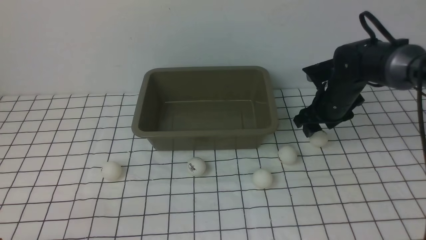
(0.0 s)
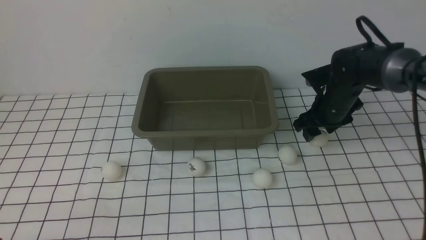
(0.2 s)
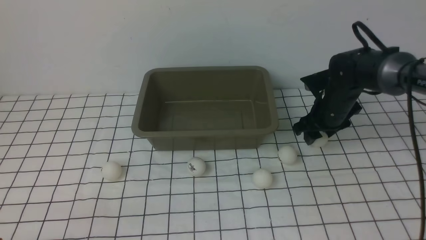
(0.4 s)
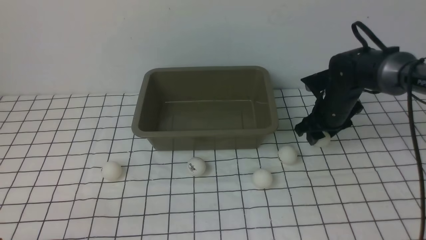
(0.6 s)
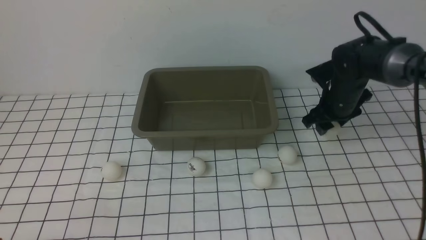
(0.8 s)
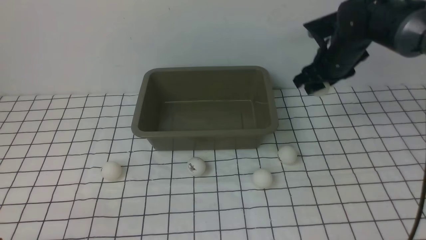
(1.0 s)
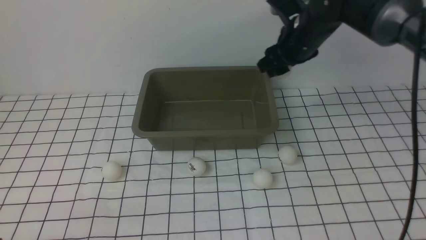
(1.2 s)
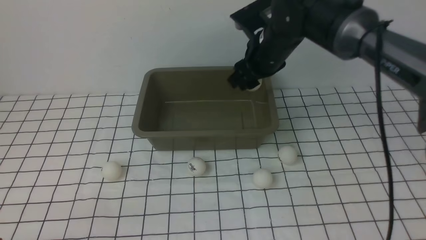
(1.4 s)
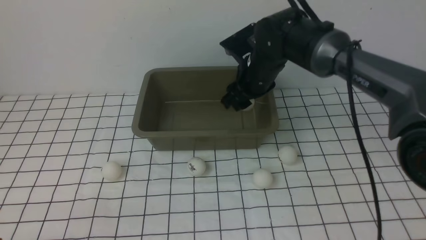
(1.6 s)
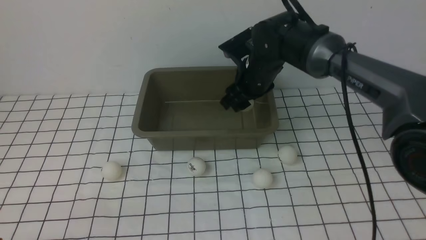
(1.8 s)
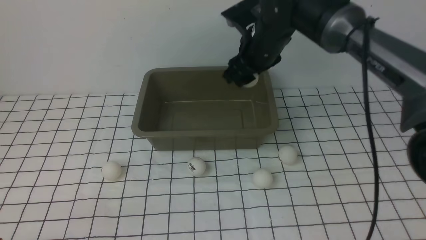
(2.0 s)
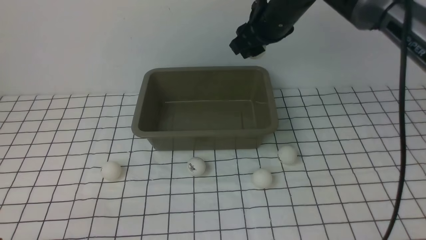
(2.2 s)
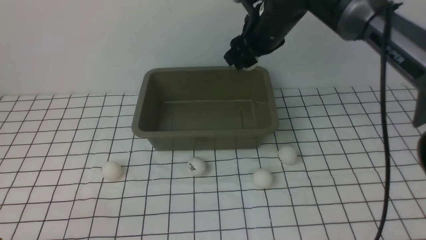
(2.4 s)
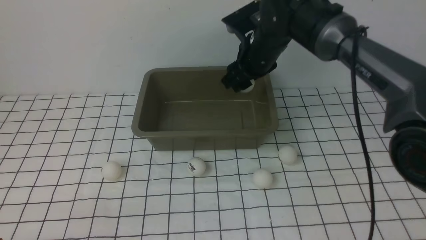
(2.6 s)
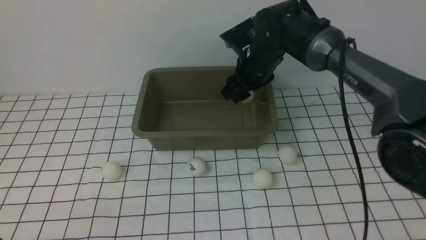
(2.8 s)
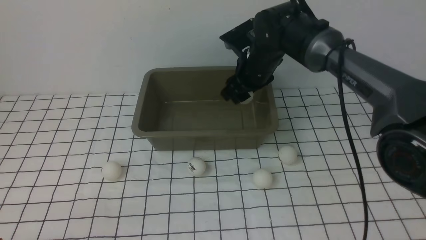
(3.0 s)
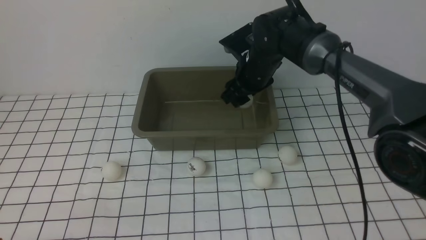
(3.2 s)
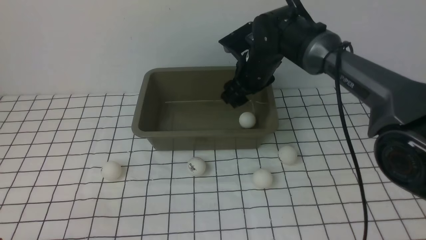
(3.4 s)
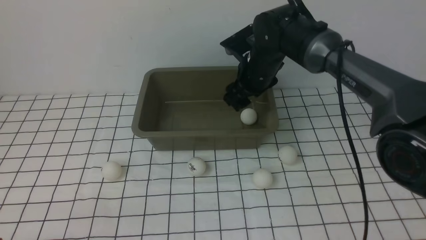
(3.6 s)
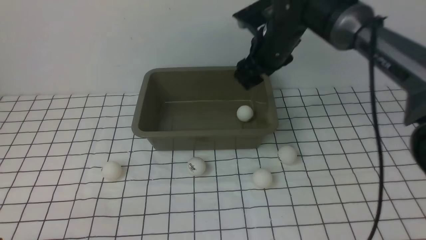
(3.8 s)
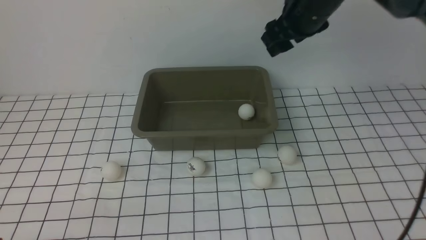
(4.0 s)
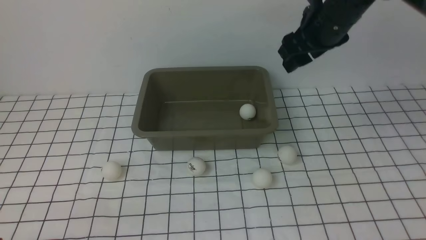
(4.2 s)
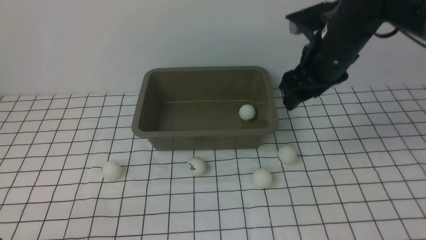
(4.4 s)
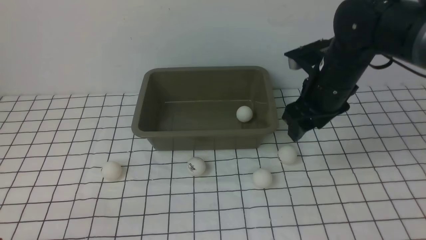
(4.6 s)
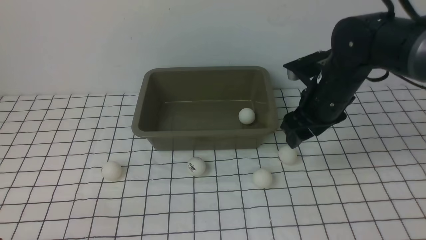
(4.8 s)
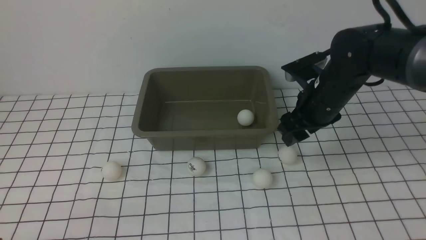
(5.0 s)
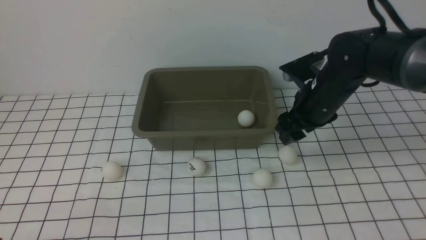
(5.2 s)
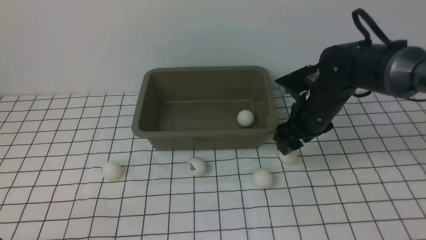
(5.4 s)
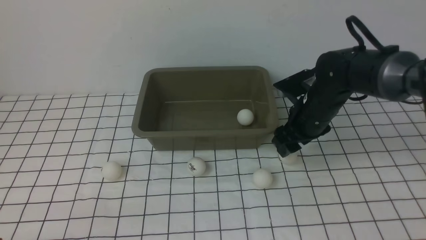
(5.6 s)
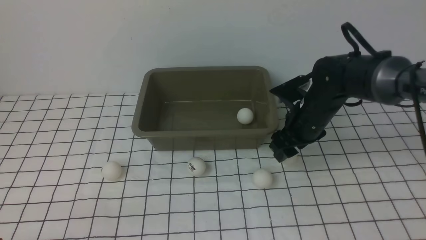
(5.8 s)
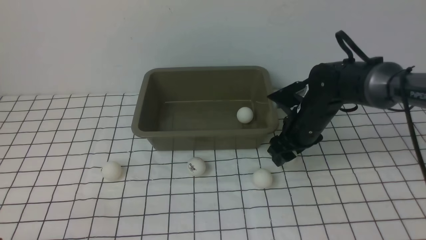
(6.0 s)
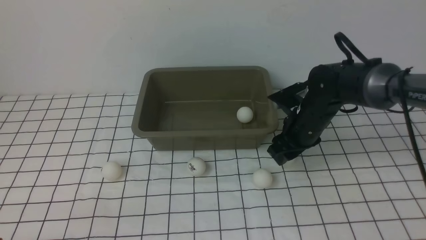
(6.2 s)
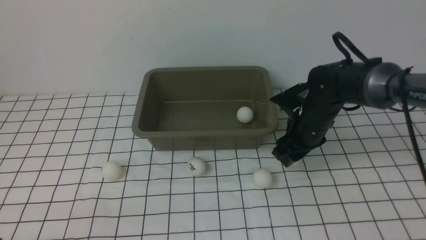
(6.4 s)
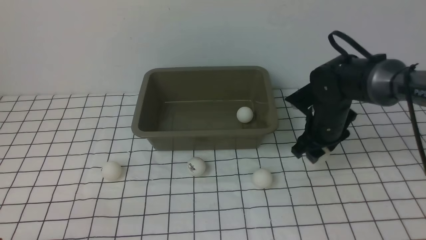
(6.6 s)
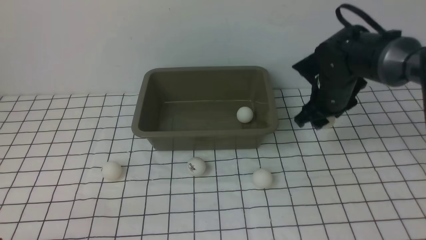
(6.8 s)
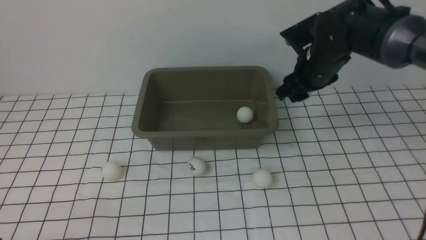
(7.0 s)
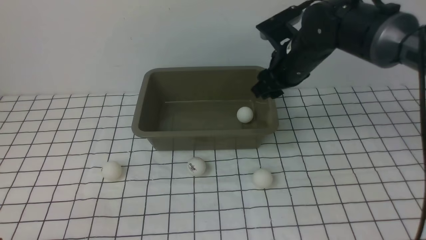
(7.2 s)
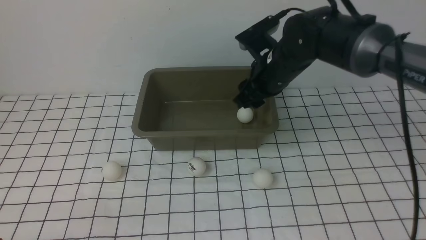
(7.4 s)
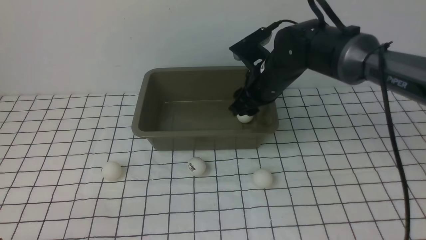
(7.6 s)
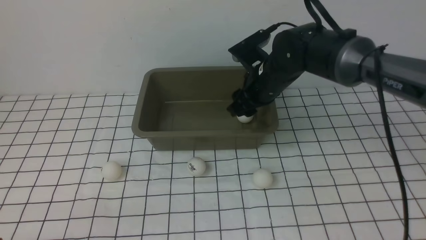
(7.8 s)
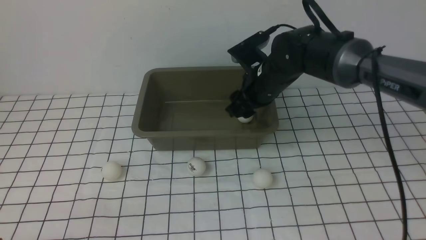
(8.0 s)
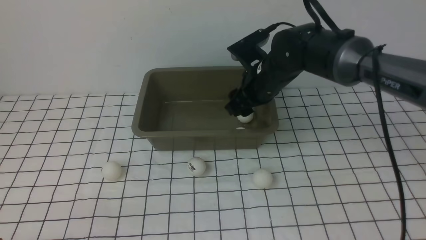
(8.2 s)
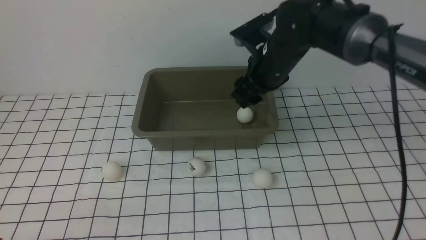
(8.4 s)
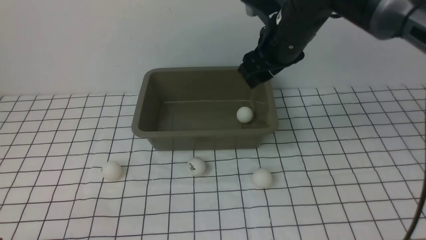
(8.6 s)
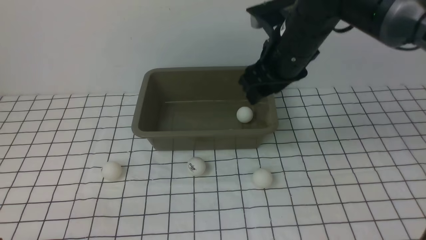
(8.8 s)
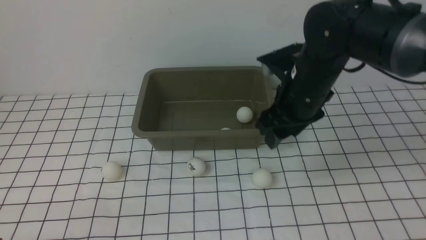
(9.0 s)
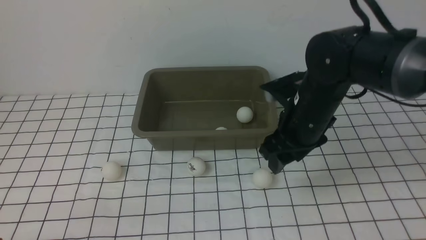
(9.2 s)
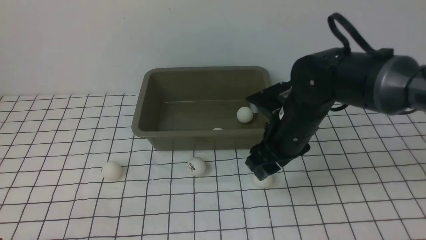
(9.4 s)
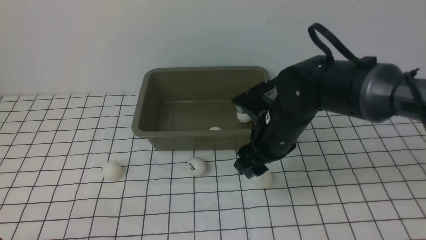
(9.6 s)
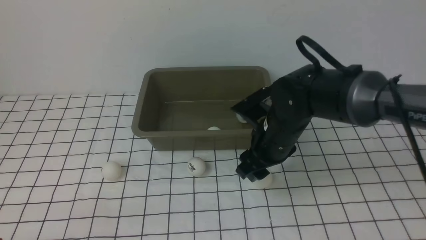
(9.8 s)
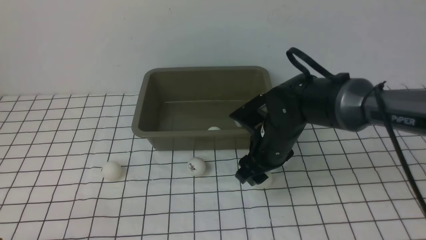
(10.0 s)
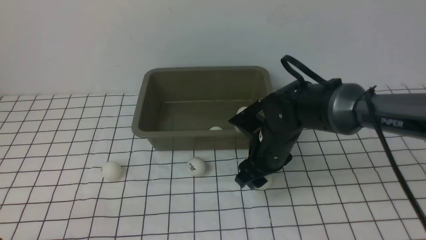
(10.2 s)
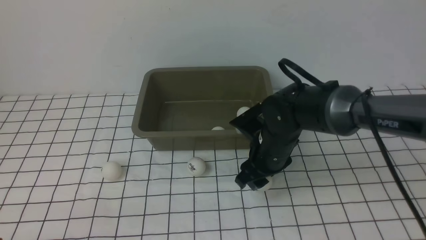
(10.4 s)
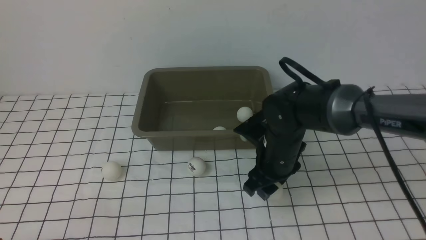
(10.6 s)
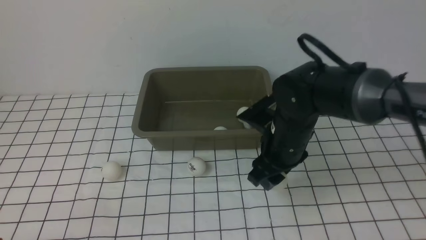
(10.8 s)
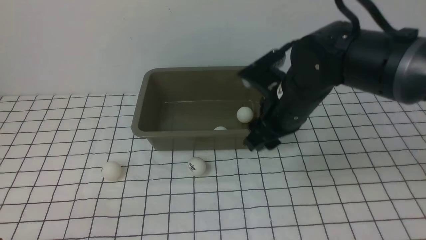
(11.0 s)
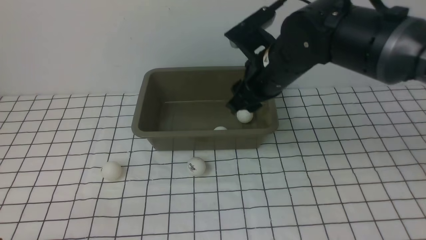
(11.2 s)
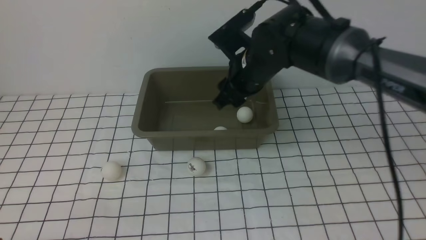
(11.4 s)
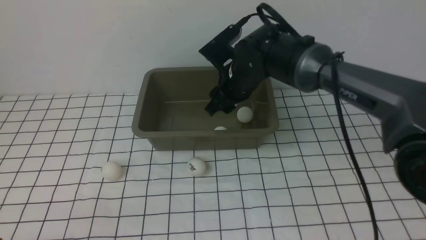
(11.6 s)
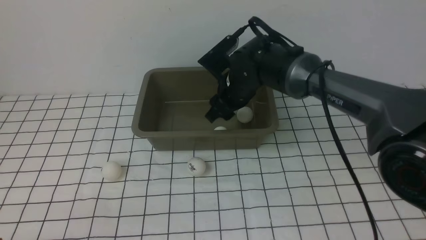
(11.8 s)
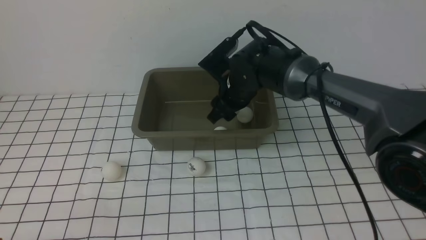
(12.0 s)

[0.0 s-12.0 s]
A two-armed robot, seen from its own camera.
Step, 1.0 to 3.4 s: use the right arm to put the table tennis ball into the box.
Step, 3.8 to 6.6 s: use the right arm to clamp the table tennis ball closest to it.
Step, 6.8 to 8.2 s: use the right arm to put the table tennis ball into the box.
Step, 8.4 to 10.8 s: use the right arm to clamp the table tennis ball closest to it.
0.0 to 1.6 s: The right gripper is displaced to the left and upward by some 15 cm.
1.6 to 3.0 s: The right gripper travels upward and back again, roughly 10 cm each way.
3.0 to 4.4 s: The right gripper travels to the right, backward and upward by about 15 cm.
4.4 to 6.0 s: The right gripper travels downward by approximately 15 cm.
6.0 to 7.6 s: The right gripper moves upward and to the left, about 10 cm.
7.6 to 9.0 s: The right gripper goes approximately 5 cm backward.
9.0 to 10.4 s: The right gripper moves downward, some 10 cm.
10.4 to 12.0 s: The right gripper is displaced forward by roughly 10 cm.

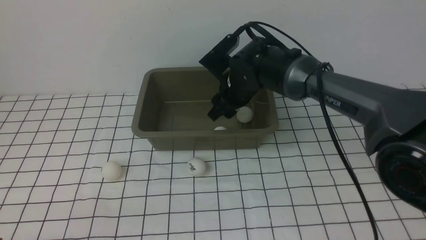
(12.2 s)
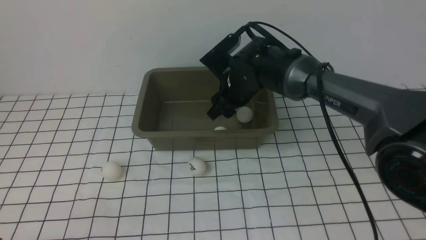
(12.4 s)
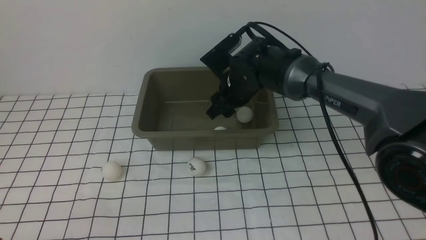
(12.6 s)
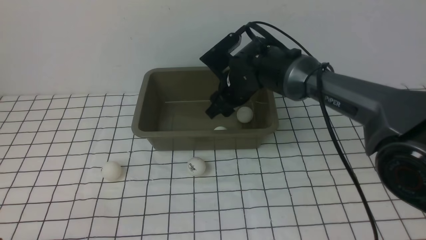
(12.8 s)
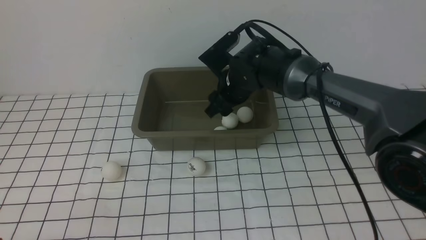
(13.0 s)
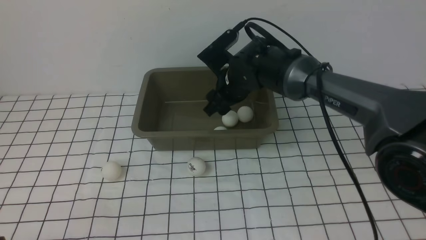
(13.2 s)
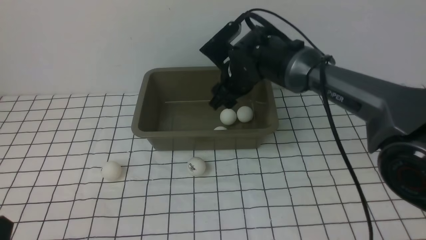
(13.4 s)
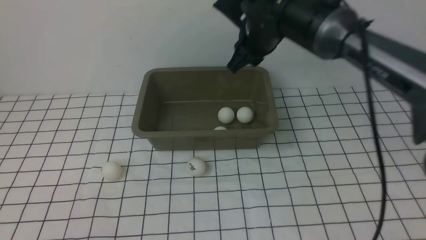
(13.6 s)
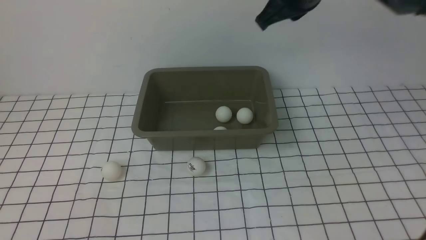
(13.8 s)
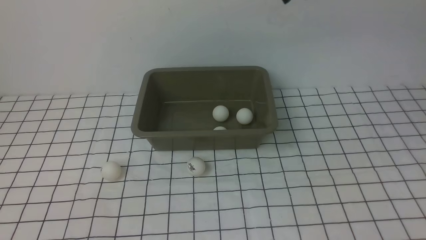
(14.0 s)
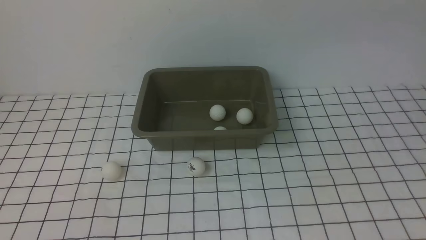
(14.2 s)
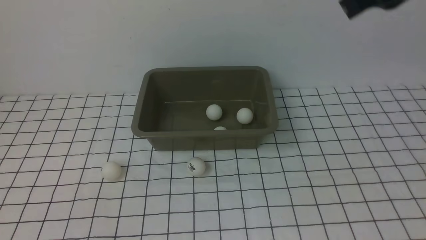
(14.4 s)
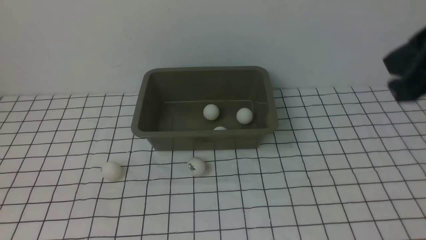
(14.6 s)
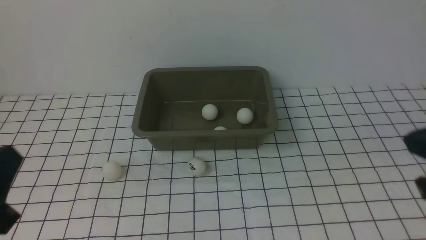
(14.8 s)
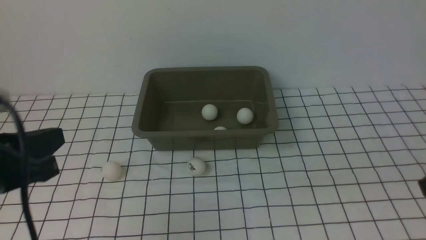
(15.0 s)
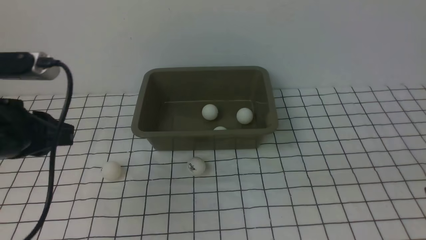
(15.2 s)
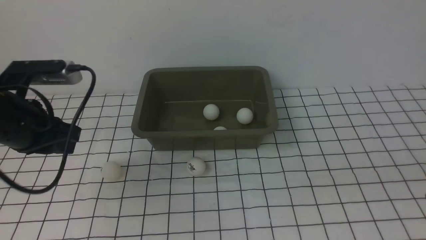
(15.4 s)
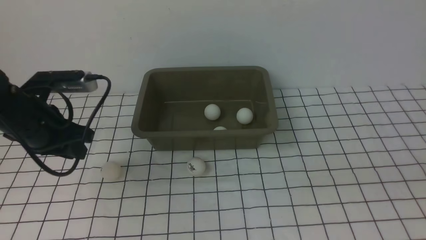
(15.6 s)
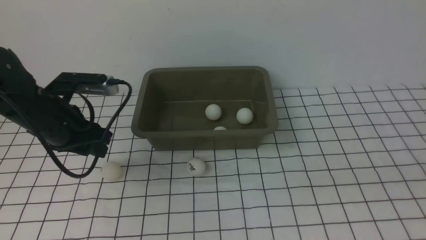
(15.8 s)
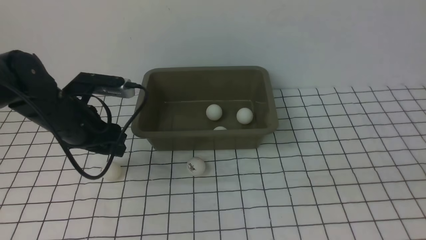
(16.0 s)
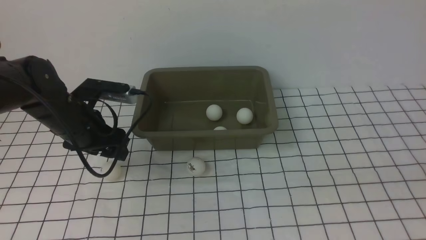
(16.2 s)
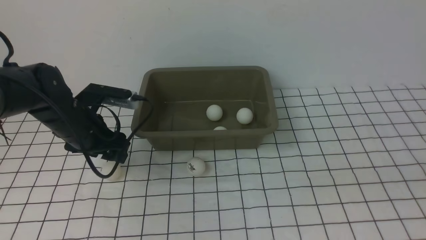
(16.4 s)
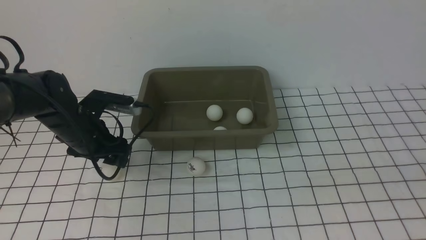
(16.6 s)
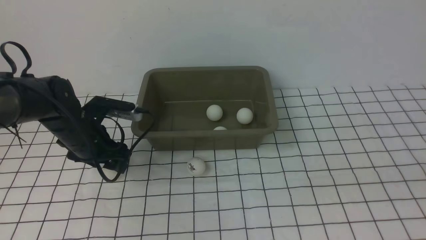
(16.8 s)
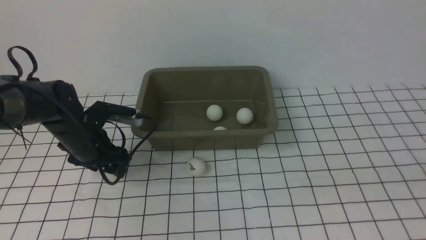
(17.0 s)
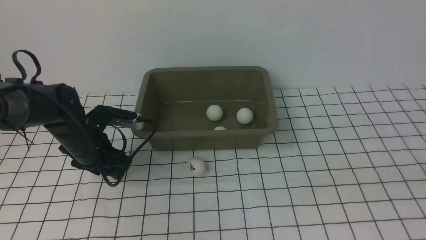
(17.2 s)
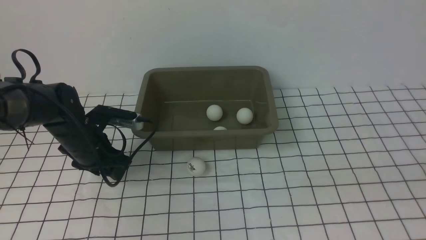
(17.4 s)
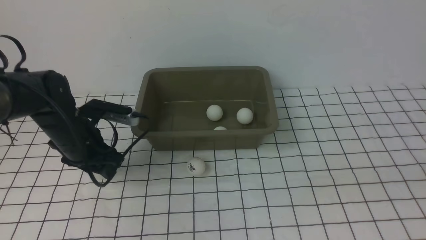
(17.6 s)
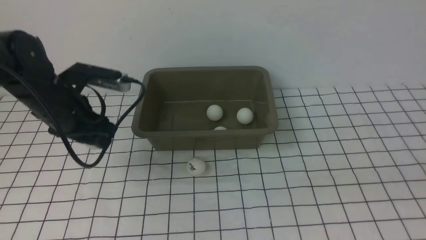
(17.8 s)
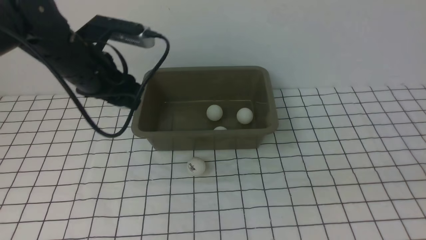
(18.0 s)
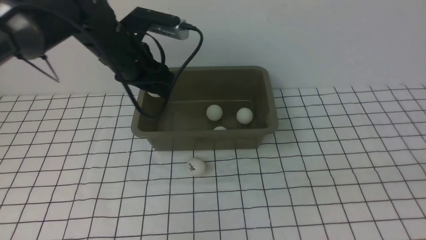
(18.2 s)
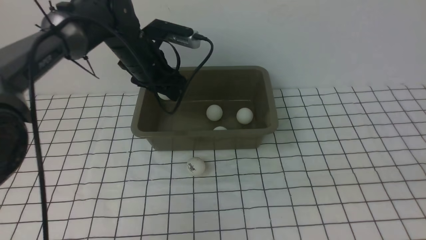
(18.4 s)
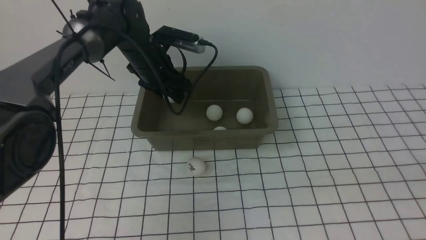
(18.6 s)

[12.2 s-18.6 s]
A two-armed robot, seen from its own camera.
Step, 13.4 to 17.6 s: use the left arm to clamp the table tennis ball closest to it.
12.2 to 13.8 s: The right gripper is displaced upward by roughly 20 cm, and closes.
13.8 to 15.4 s: The right gripper shifts roughly 35 cm backward and to the right, while the left gripper goes about 20 cm forward.
15.4 to 17.0 s: The left gripper shifts some 15 cm downward and forward, and opens.
17.0 to 18.6 s: The left gripper shifts about 15 cm forward, to the right and upward.
